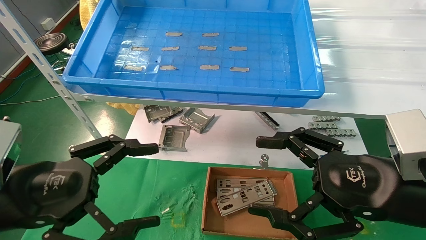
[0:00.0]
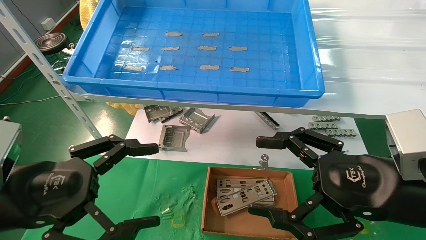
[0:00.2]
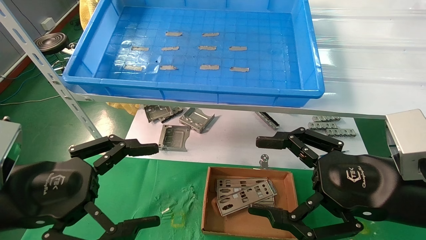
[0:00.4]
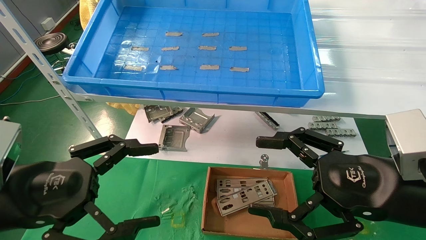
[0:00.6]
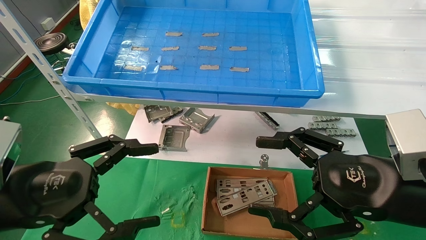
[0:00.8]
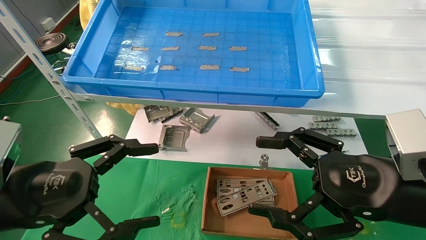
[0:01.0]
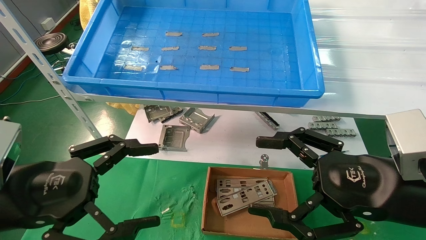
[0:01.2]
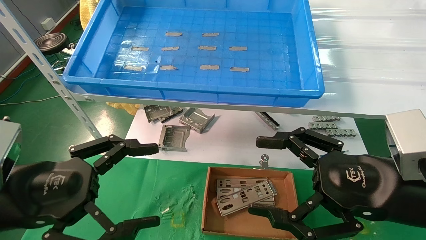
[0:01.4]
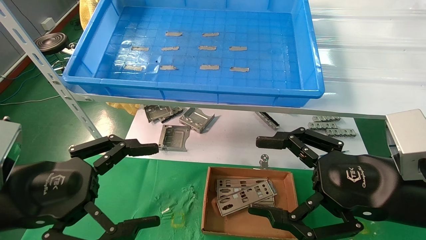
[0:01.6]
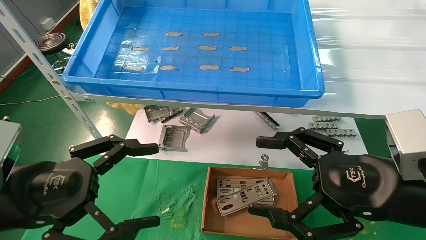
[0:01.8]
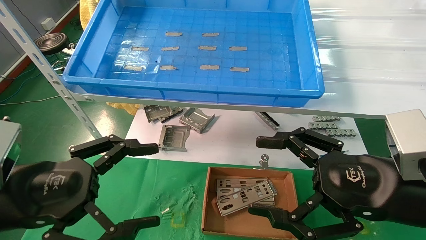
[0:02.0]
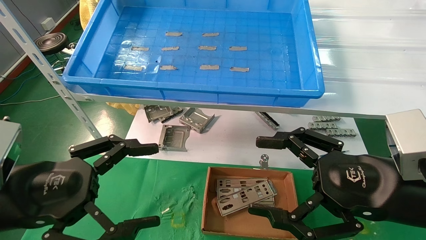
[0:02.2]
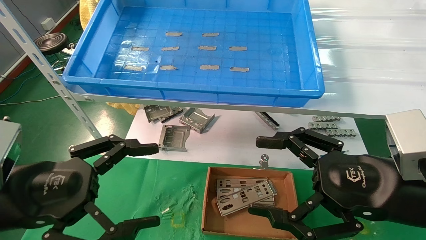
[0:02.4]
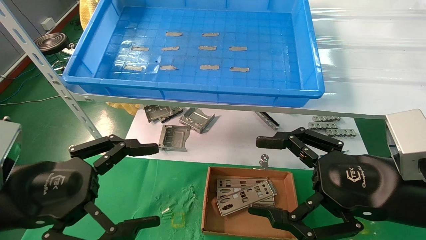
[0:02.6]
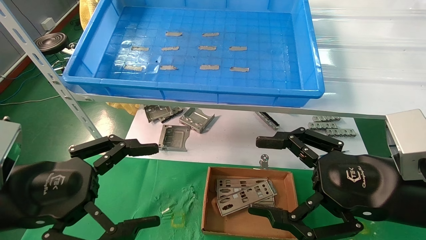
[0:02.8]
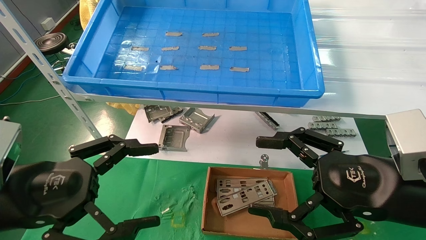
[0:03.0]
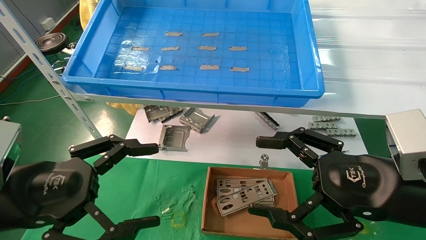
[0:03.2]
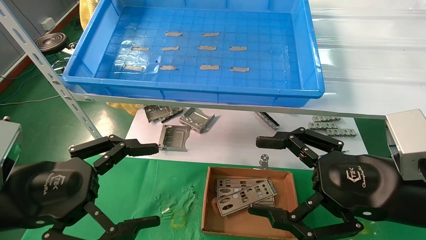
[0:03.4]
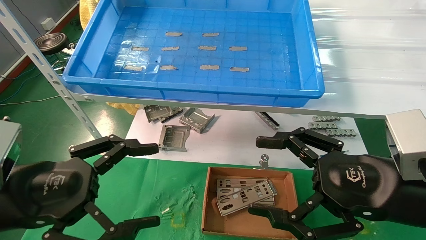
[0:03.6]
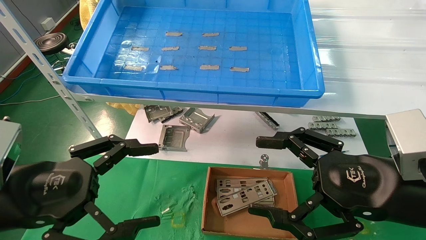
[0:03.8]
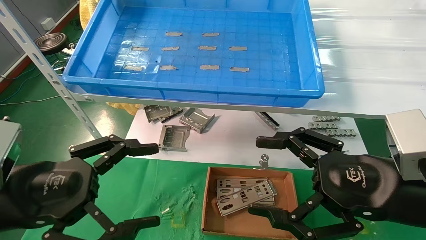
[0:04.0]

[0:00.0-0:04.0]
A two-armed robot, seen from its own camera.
Task of the whole recording: pick up the parts on the tray and put them in the cardboard box.
0:00.0 to 0:04.0: Both grippers stay put.
